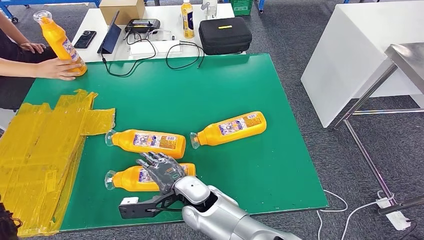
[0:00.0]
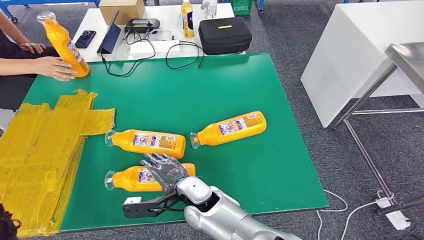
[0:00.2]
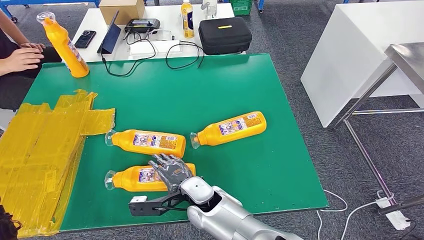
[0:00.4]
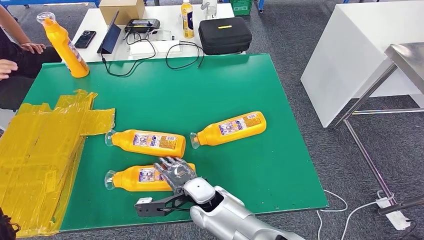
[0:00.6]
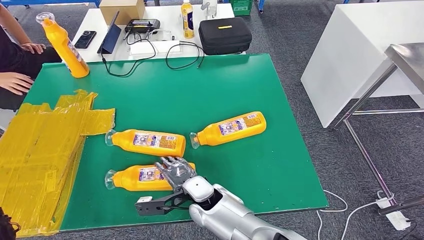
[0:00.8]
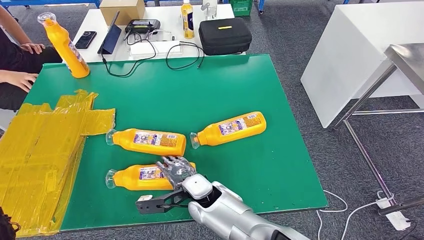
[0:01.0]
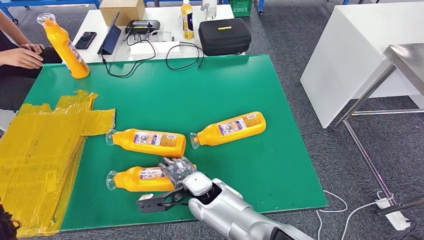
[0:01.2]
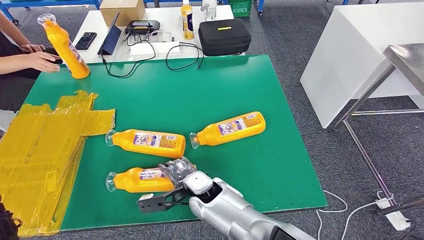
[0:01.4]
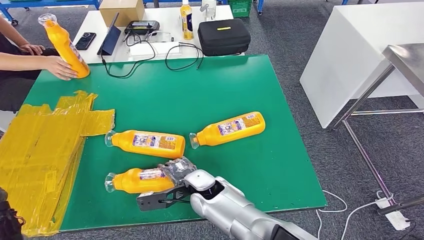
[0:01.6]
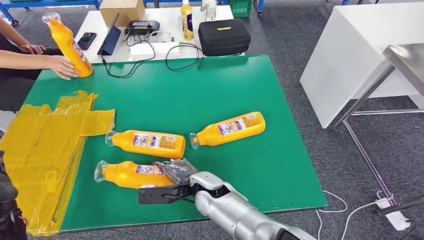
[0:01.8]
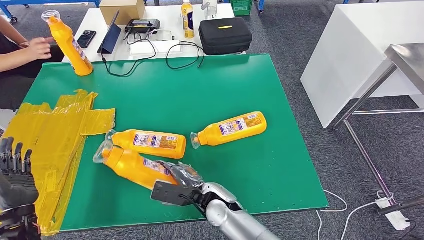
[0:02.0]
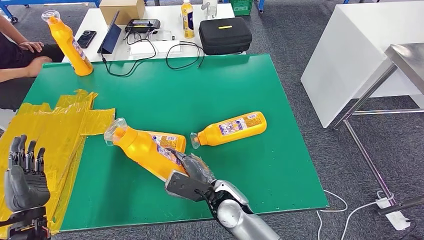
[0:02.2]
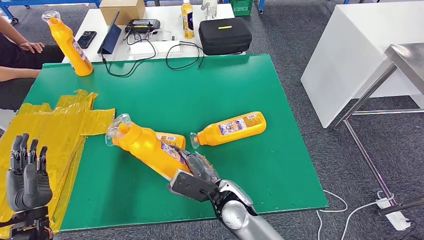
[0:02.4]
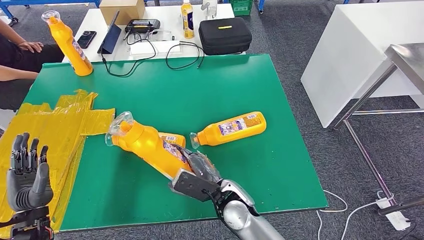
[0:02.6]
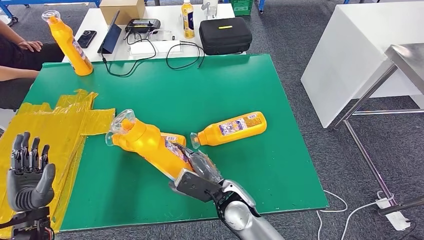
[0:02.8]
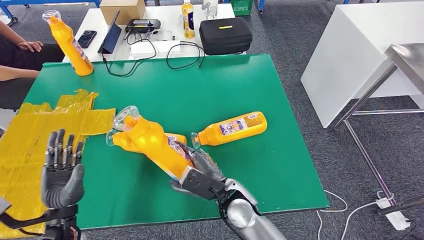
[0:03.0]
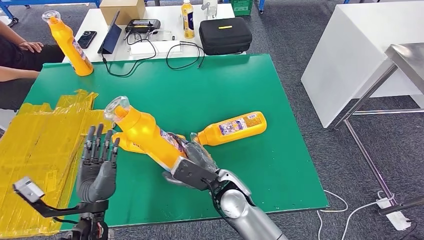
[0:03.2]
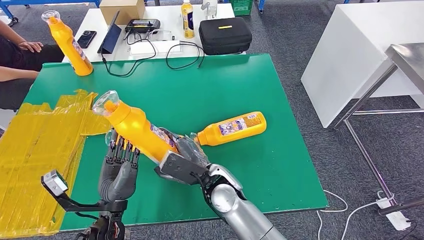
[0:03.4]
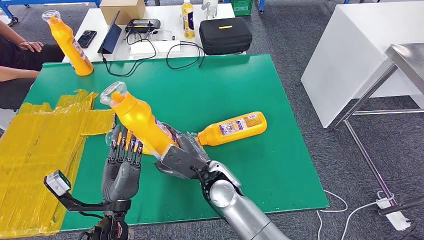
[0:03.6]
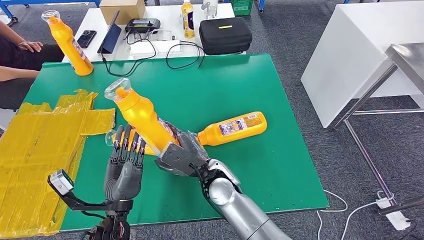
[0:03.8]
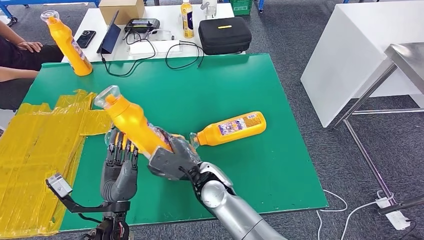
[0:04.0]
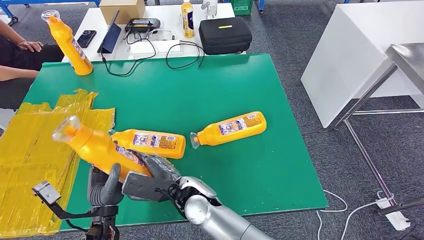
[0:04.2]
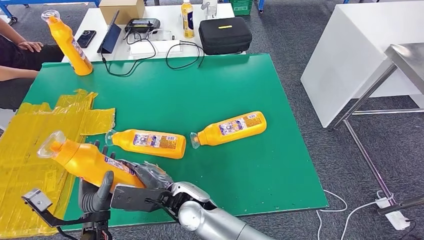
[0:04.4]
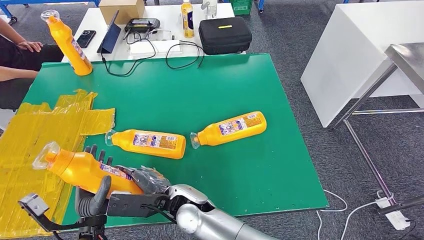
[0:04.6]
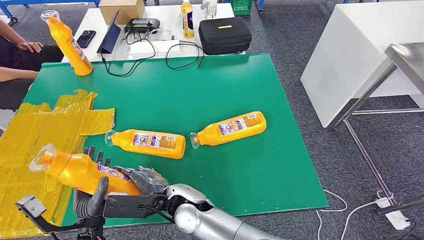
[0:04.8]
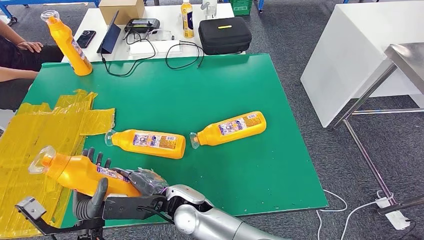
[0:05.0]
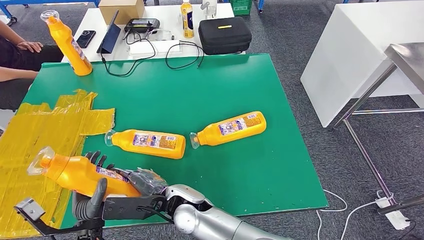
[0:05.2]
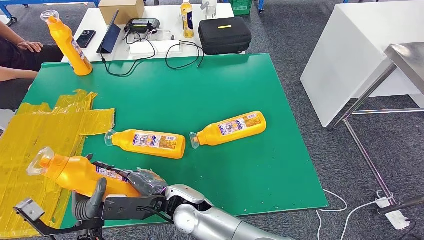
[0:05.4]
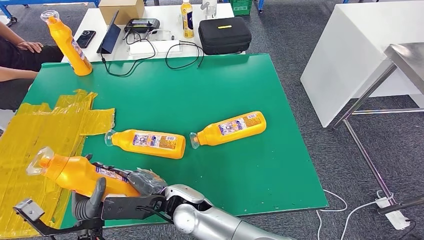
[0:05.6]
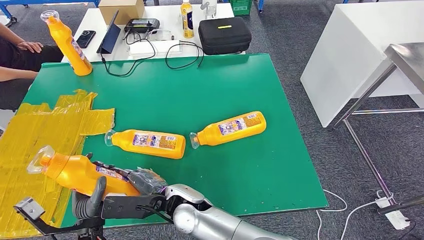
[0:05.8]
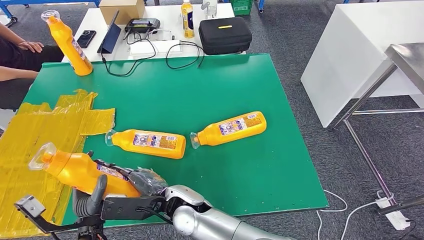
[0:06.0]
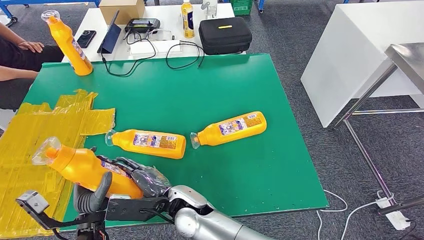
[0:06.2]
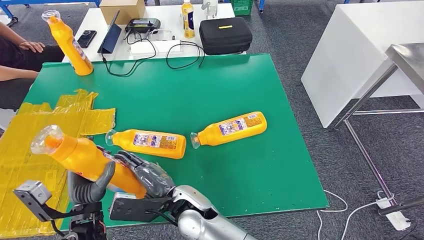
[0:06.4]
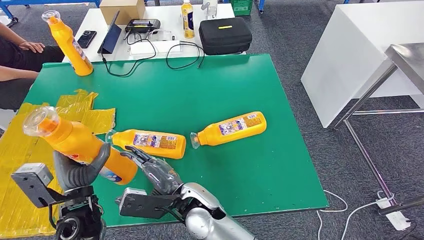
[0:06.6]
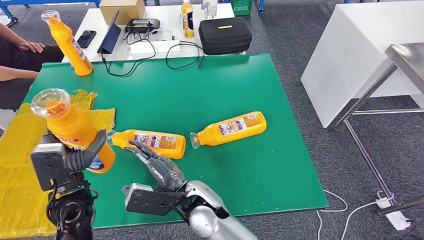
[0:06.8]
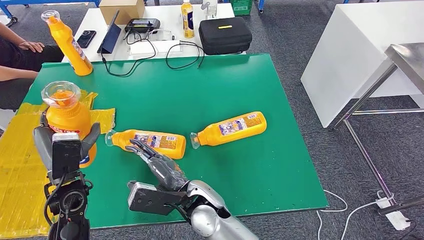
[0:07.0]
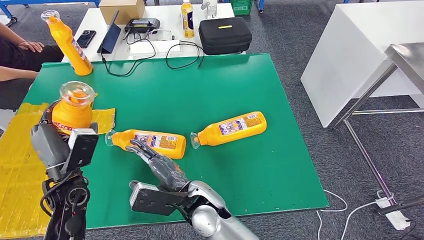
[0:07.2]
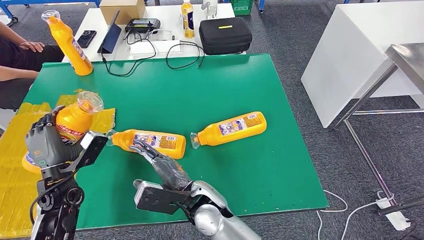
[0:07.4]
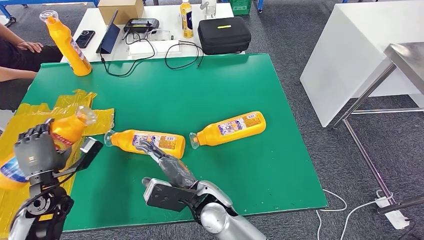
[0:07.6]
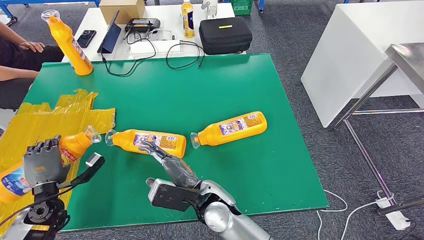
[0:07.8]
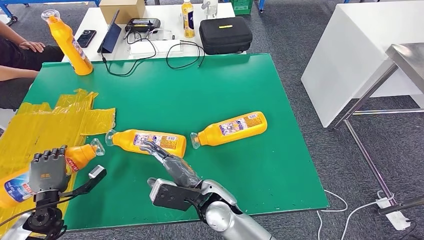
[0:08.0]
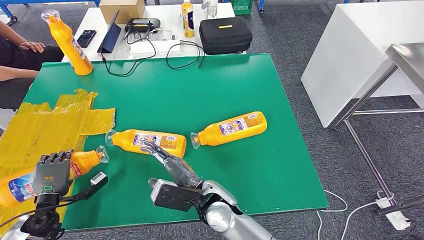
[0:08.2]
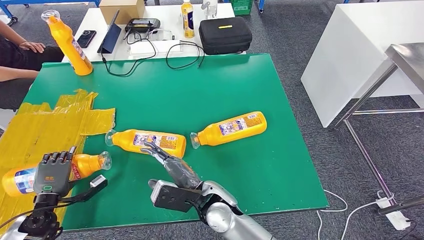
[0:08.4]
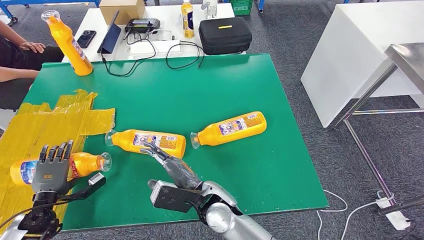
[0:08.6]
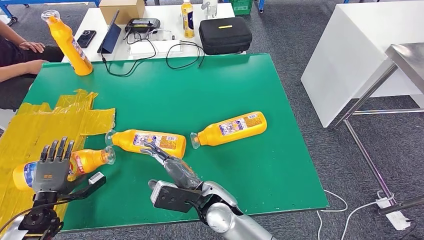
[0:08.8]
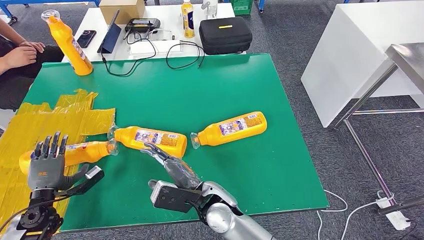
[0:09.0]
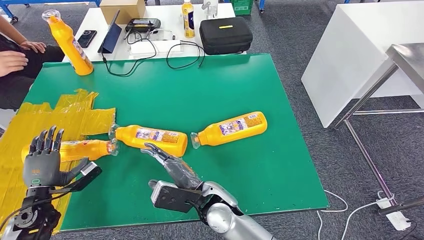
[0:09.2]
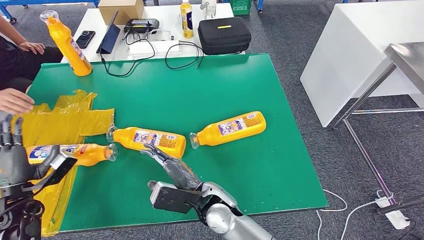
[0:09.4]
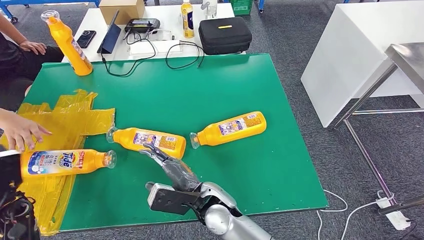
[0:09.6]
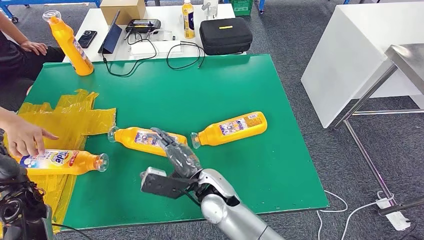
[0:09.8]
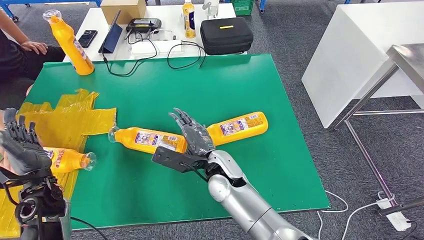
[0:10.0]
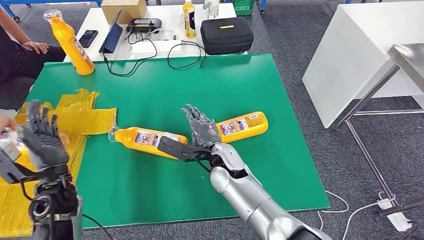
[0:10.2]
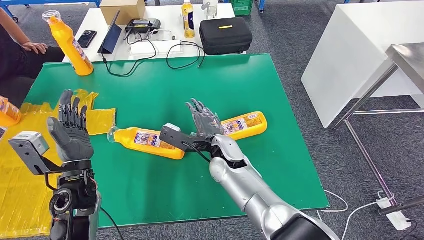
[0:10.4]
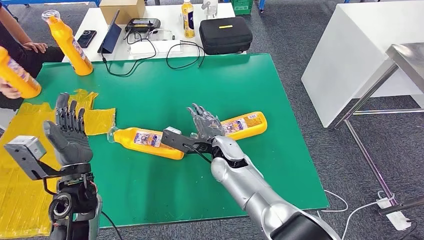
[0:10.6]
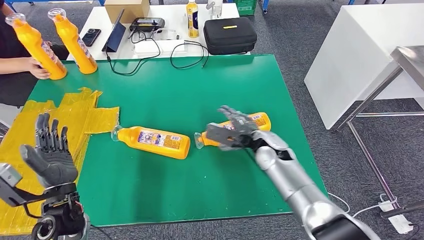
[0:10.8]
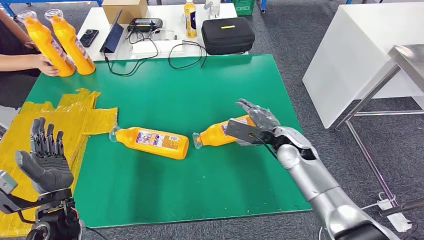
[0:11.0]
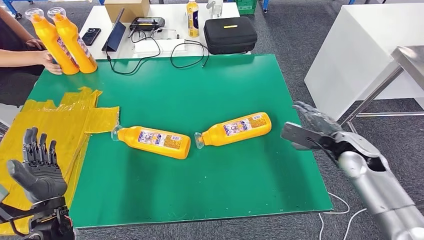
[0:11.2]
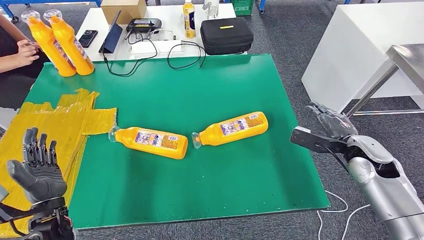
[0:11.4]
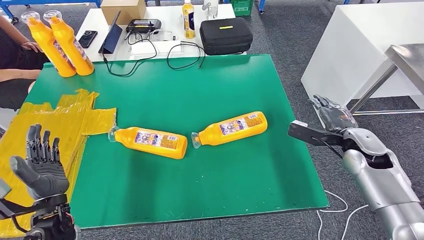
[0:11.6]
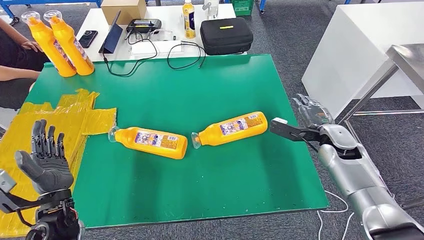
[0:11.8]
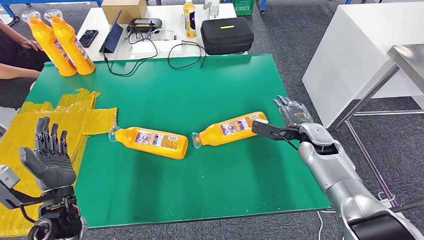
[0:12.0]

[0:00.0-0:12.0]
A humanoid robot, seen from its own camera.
Step, 0:00.2 to 0:03.2: Pick up the fast-moving consumer goods bottle from the table.
Step, 0:03.6 to 0:09.2: Flip the fast-moving consumer goods bottle to the front side.
0:03.0 to 0:04.4: The right hand moves to the left, some 10 cm. The left hand moves to the right, approximately 5 cm.
0:04.4 to 0:06.0: The hands stay close to where they were, moving slightly.
0:06.0 to 0:07.6: The left hand goes some 20 cm to the left and forward; the right hand moves to the right, some 5 cm.
0:07.6 to 0:09.0: The left hand heads downward and to the left, covering approximately 10 cm.

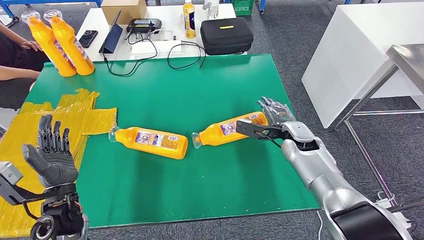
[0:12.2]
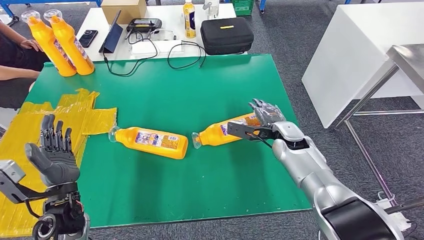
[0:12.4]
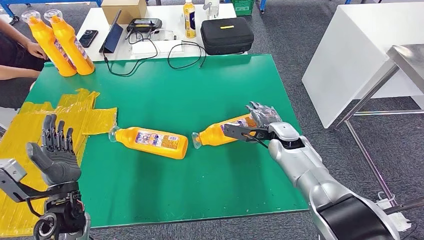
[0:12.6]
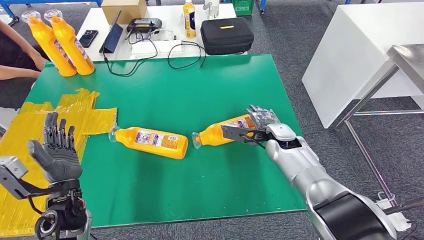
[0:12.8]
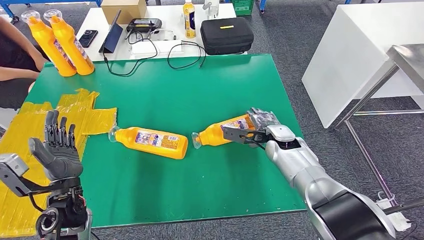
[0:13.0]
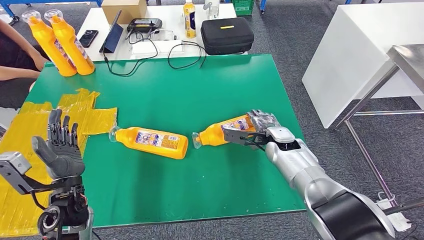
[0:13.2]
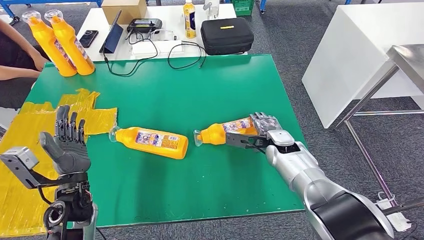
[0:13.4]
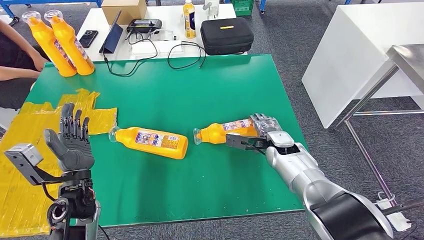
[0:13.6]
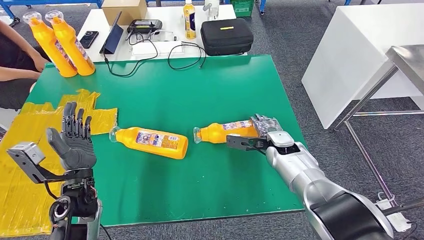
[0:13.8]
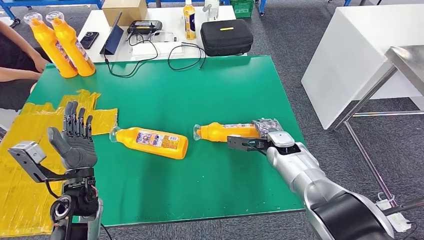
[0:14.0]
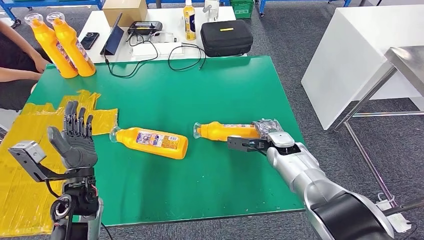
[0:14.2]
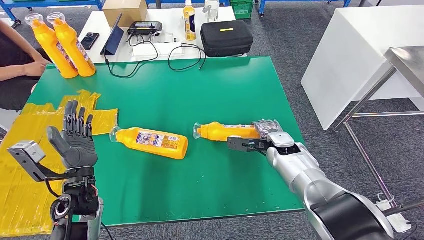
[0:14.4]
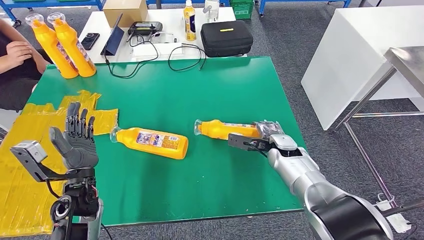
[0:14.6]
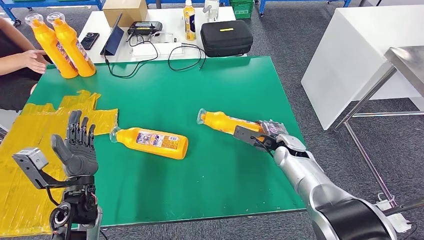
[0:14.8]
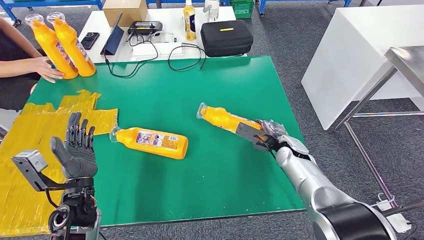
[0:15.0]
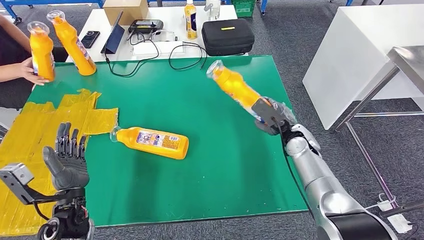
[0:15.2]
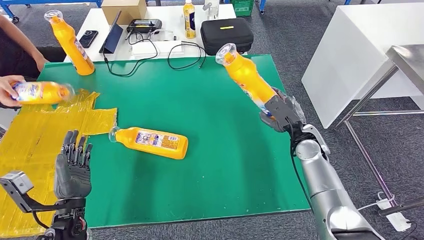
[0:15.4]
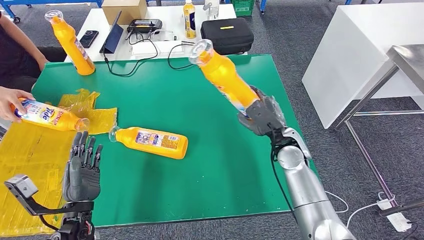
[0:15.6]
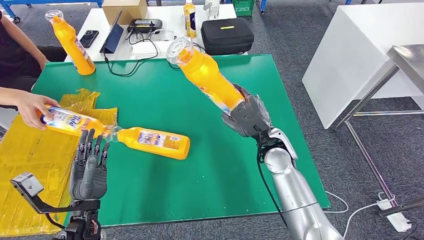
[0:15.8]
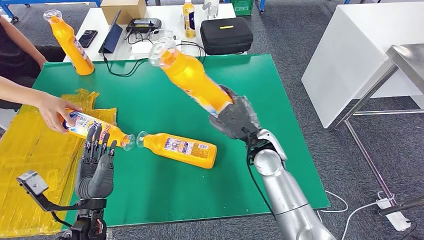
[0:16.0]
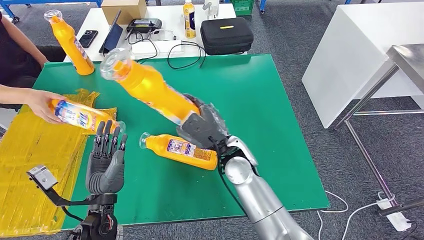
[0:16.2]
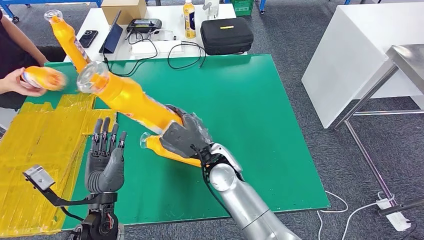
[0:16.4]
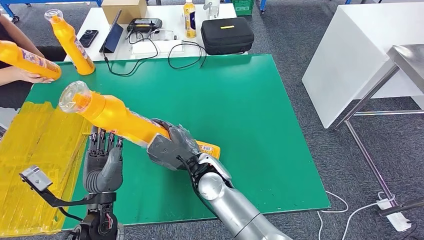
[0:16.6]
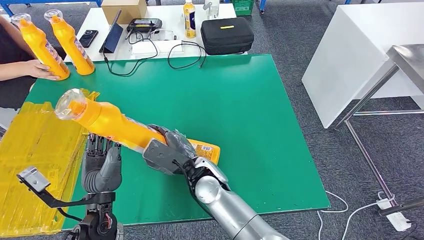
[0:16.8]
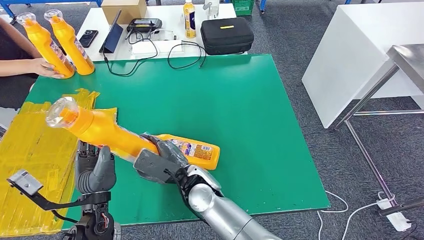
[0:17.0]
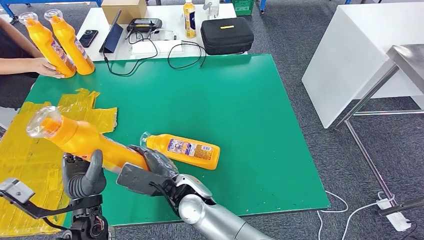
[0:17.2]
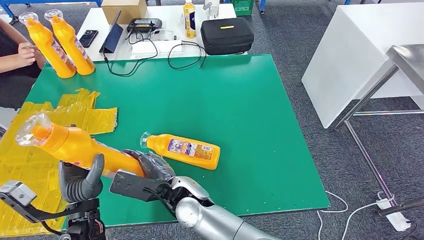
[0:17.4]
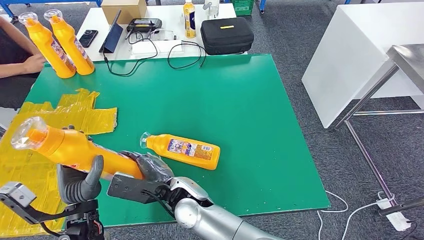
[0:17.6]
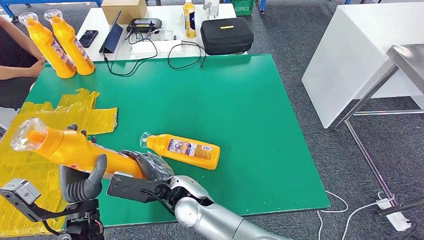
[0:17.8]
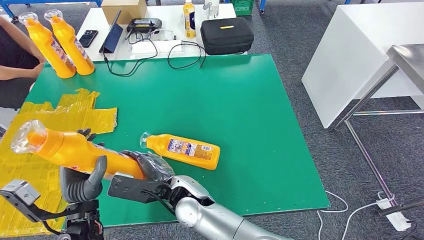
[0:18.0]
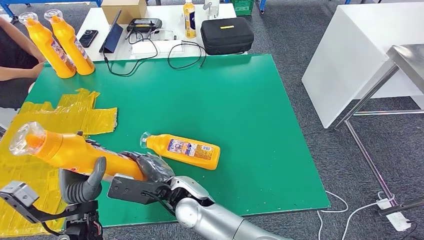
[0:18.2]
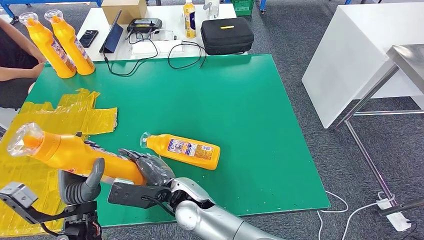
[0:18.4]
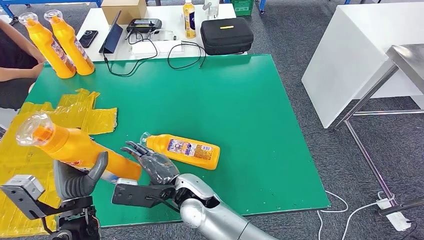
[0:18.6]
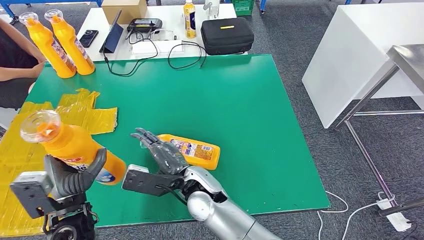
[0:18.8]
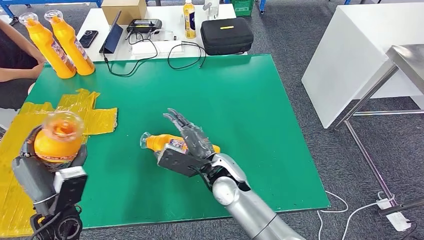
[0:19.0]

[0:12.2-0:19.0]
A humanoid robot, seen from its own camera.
Step, 0:14.6 to 0:16.8: Pick up the fast-moving consumer goods bottle from the table.
0:12.2 to 0:13.6: The right hand shifts by about 5 cm.
0:17.6 to 0:19.0: The left hand shifts about 5 cm to the left. The right hand goes some 10 cm to the right and forward.
